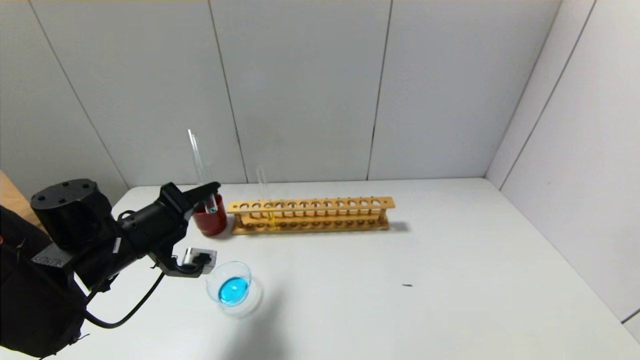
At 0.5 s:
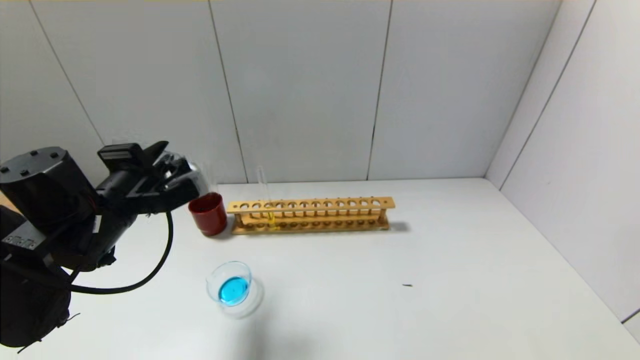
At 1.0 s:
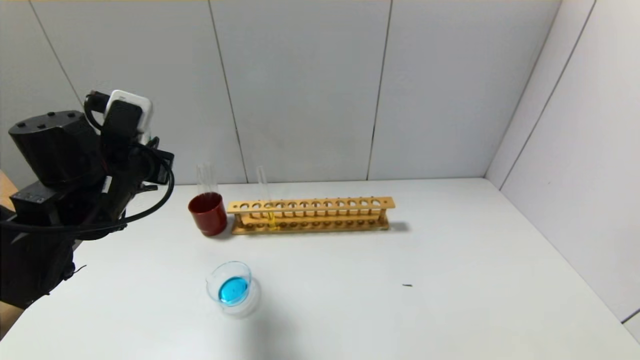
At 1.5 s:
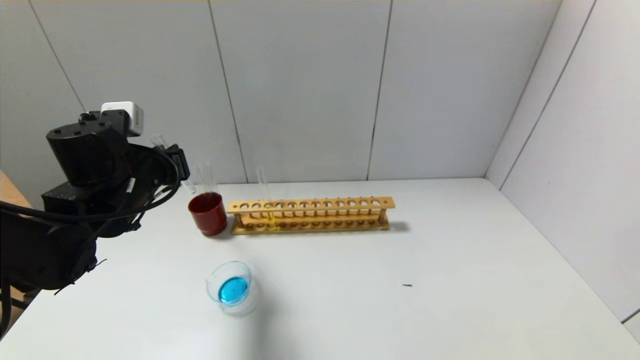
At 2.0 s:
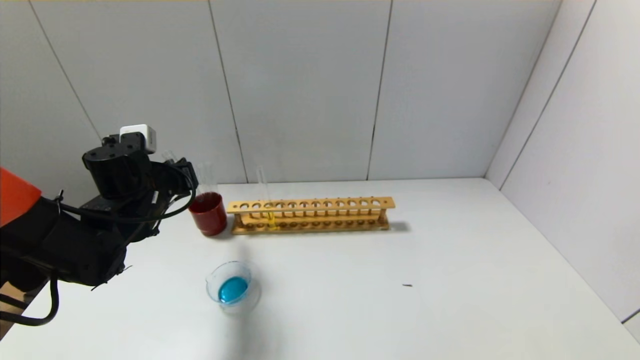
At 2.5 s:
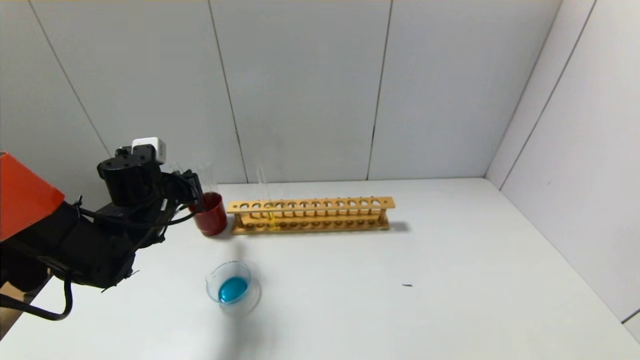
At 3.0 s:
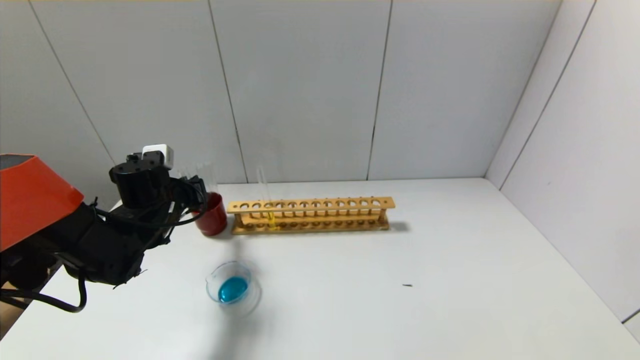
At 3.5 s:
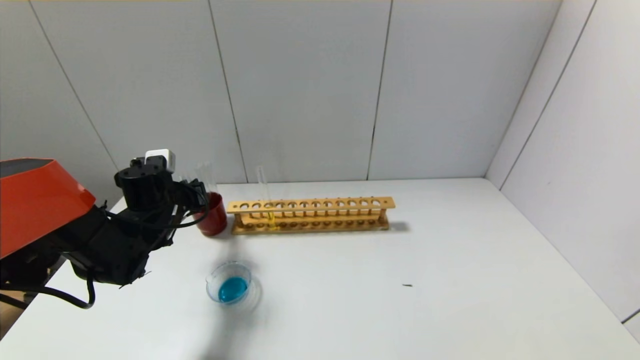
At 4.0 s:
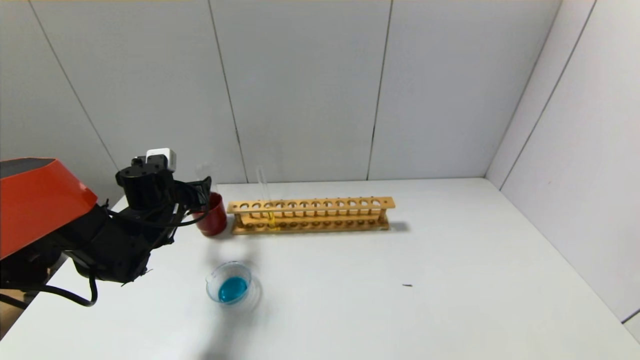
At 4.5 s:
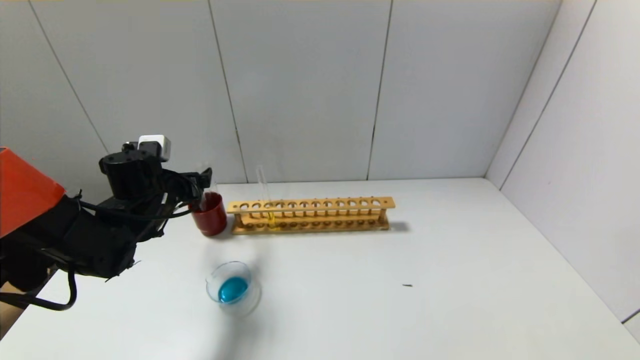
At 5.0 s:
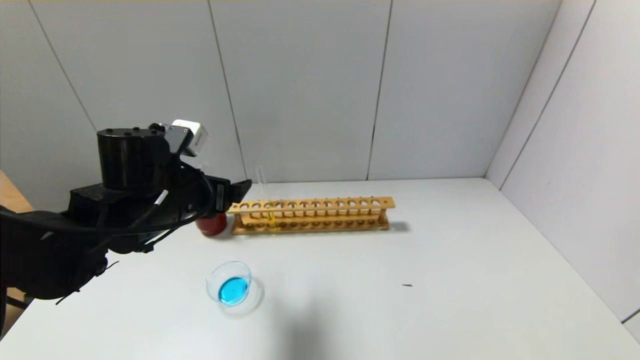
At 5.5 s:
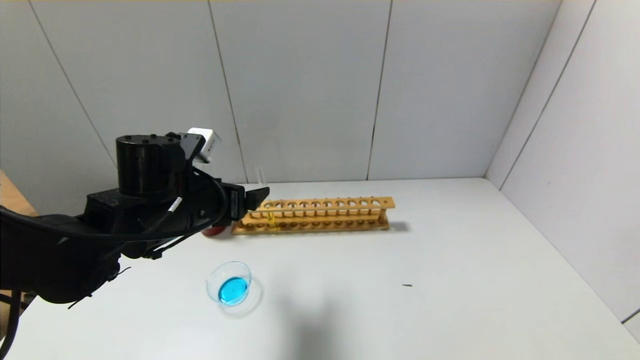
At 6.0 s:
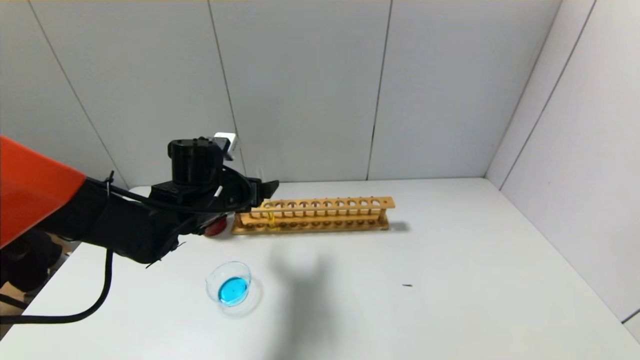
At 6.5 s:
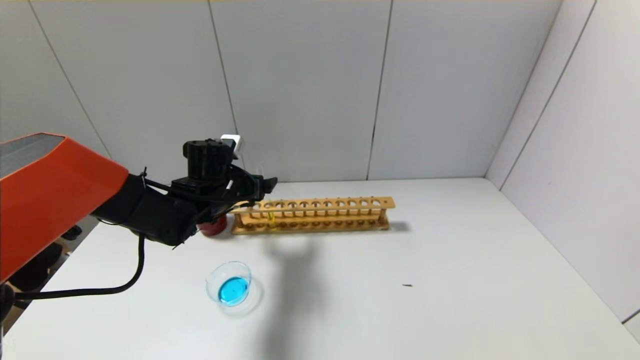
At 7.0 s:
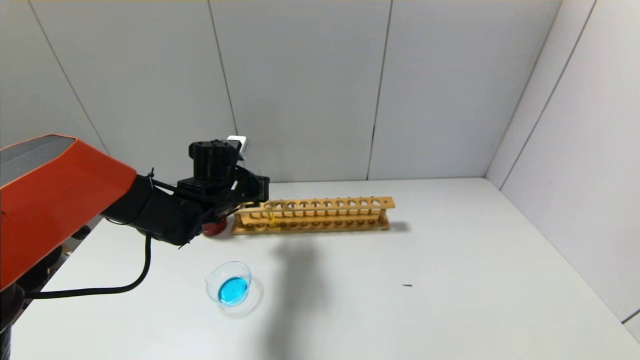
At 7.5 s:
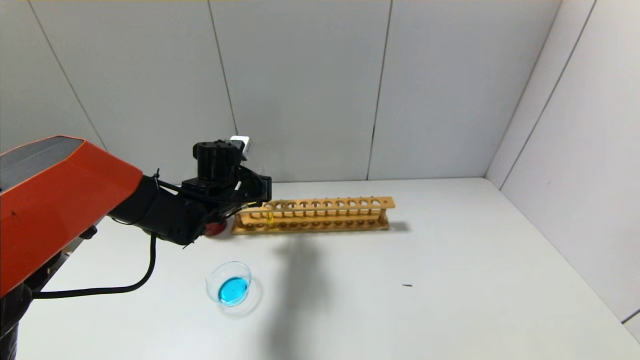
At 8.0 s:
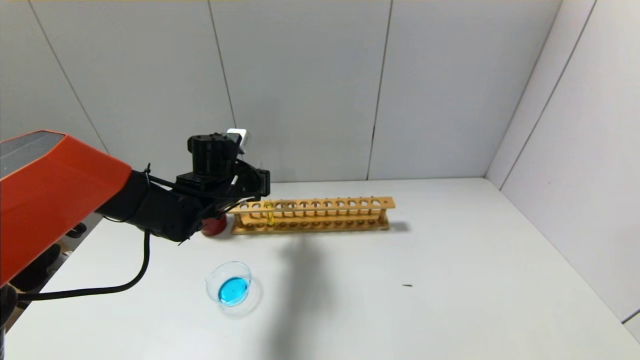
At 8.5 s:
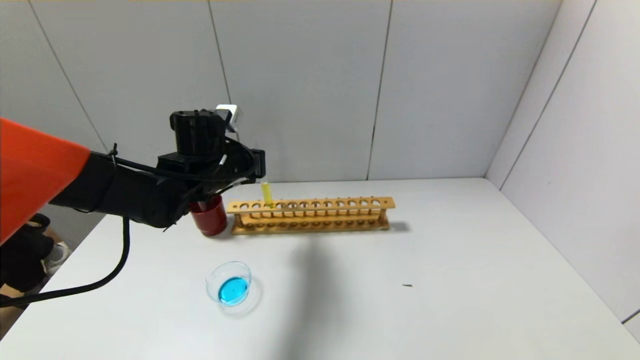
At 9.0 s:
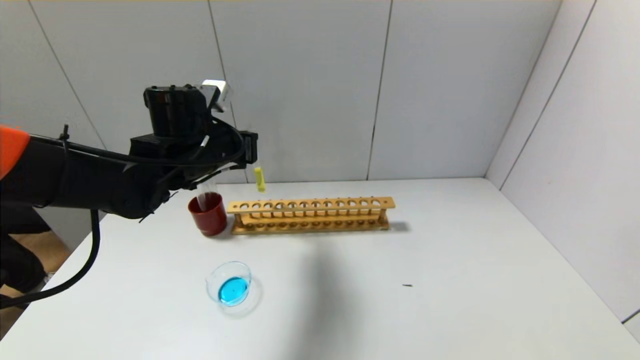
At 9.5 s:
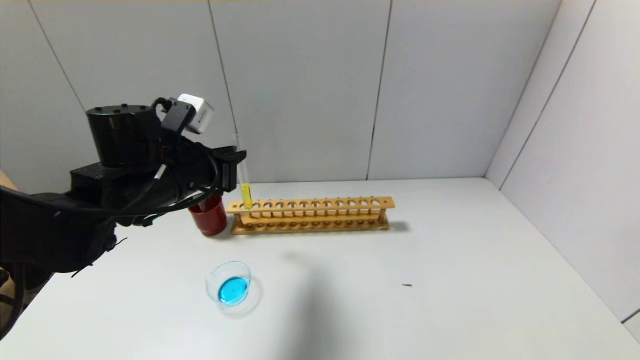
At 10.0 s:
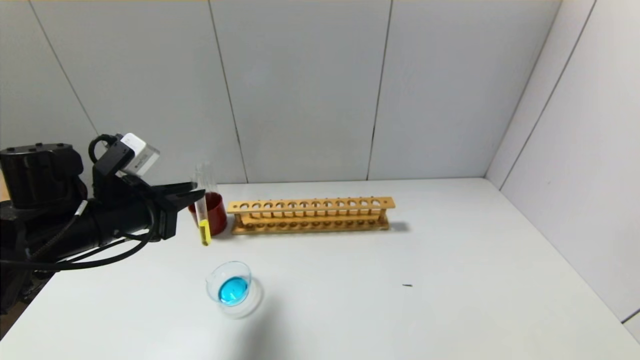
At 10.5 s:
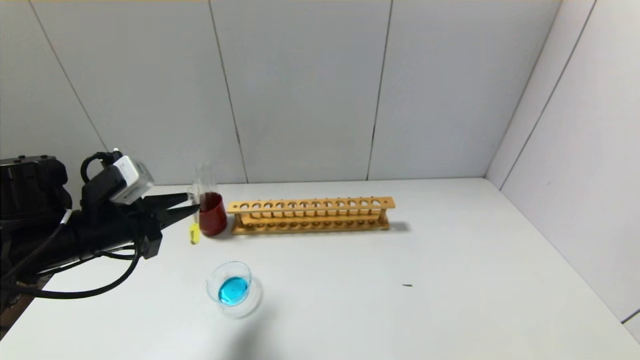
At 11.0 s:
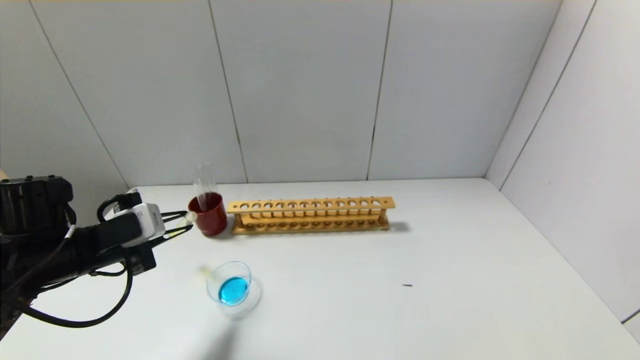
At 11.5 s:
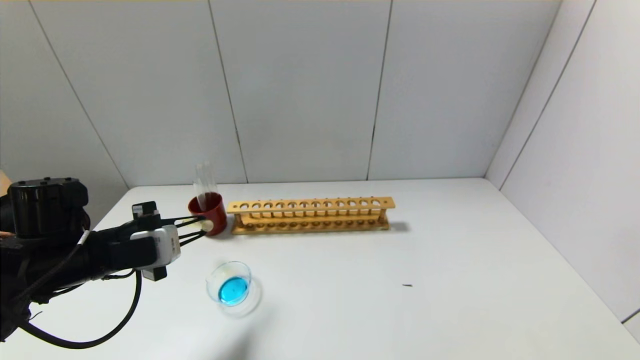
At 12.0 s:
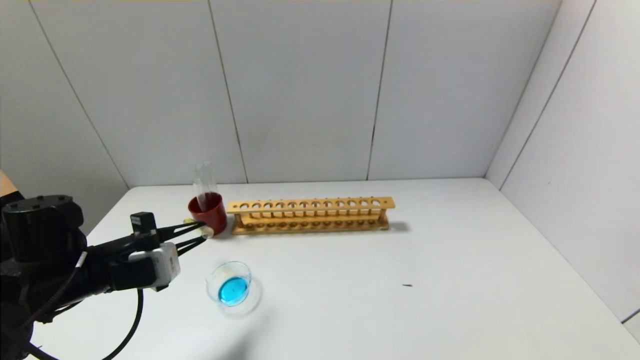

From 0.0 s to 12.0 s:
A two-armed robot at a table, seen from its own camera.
Step, from 0.5 s to 3.5 s: Place the test tube into the brown cup with the left gripper.
Step, from 4.0 s to 7.0 s: Grasp the yellow reagent with the left gripper.
From 0.0 s to 2.0 s: The left gripper moves forward, about 5 cm.
From 2.0 s to 4.0 s: The left gripper goes some 5 cm downward, and opens.
From 4.0 s to 6.0 s: The left gripper heads to the right, covering roughly 10 cm, and reaches roughly 10 cm backward, then returns.
From 6.0 s to 8.0 s: The left gripper closes.
From 8.0 s to 10.0 s: The left gripper is displaced backward and to the left by some 15 cm.
From 10.0 s to 12.0 s: The left gripper travels downward by roughly 5 cm.

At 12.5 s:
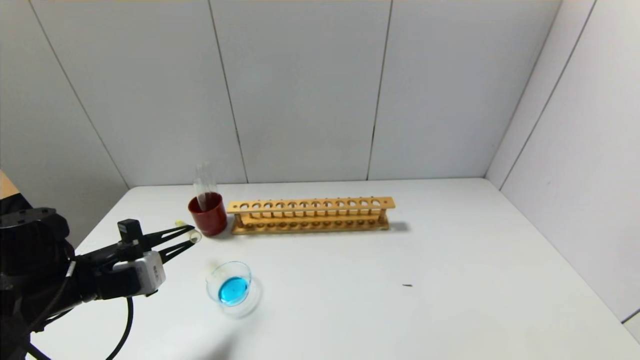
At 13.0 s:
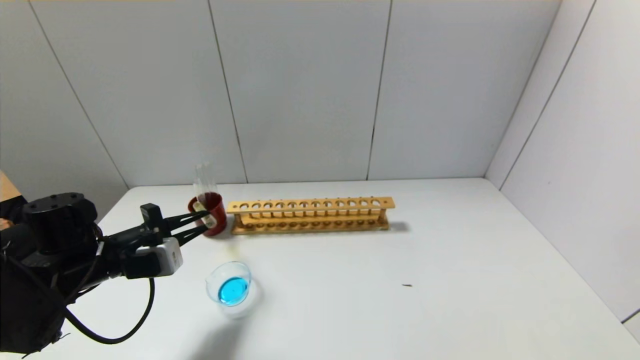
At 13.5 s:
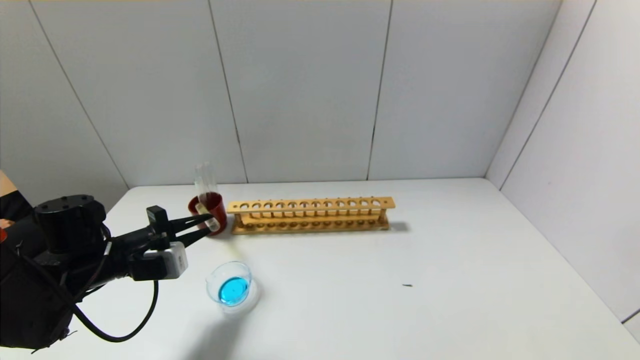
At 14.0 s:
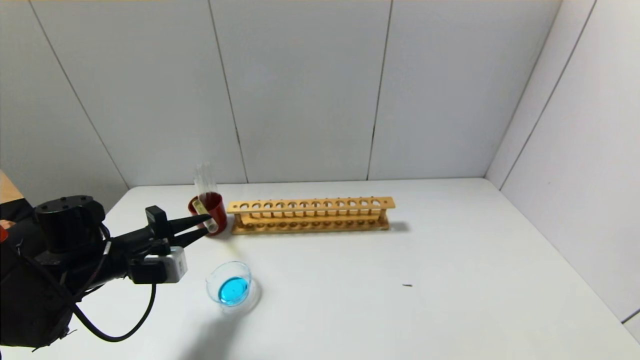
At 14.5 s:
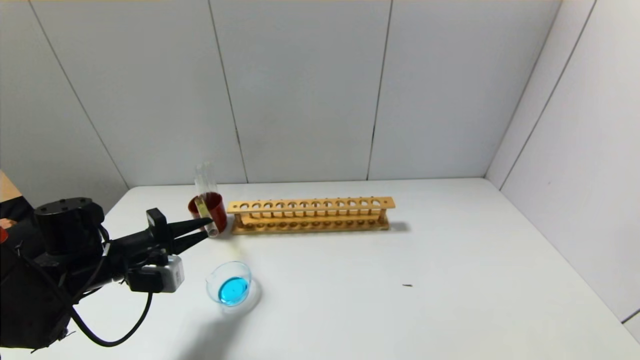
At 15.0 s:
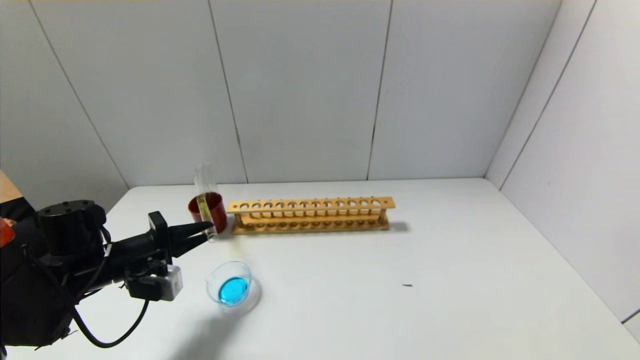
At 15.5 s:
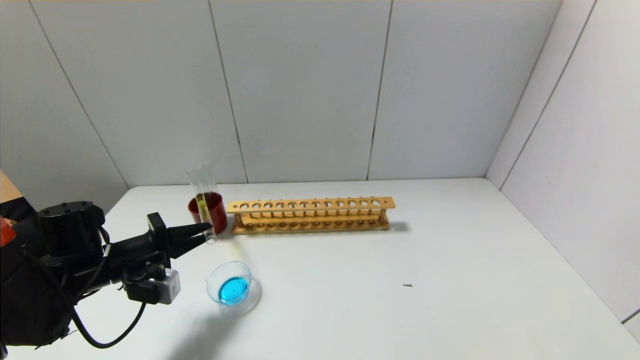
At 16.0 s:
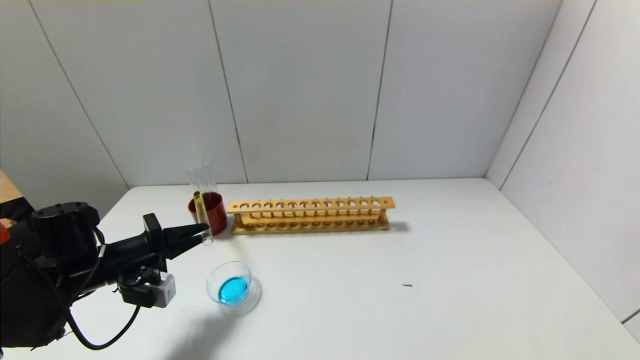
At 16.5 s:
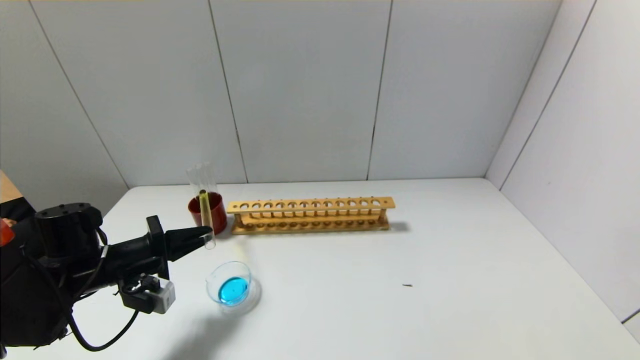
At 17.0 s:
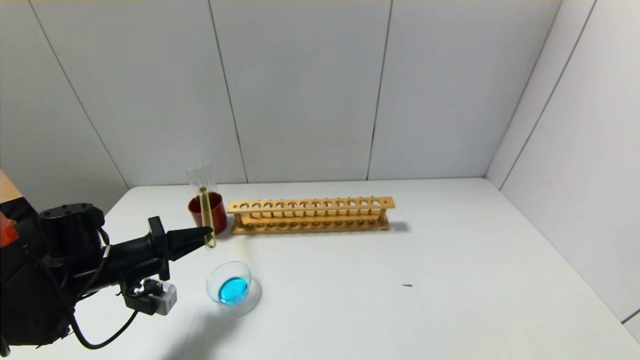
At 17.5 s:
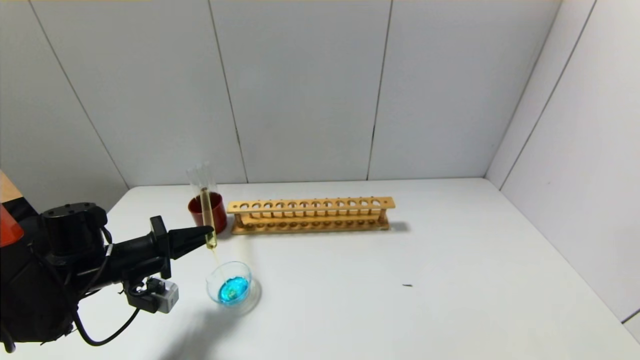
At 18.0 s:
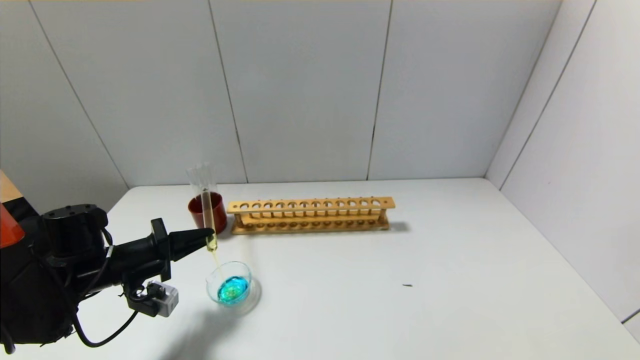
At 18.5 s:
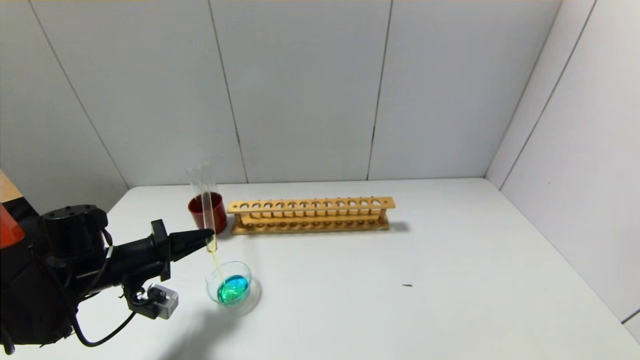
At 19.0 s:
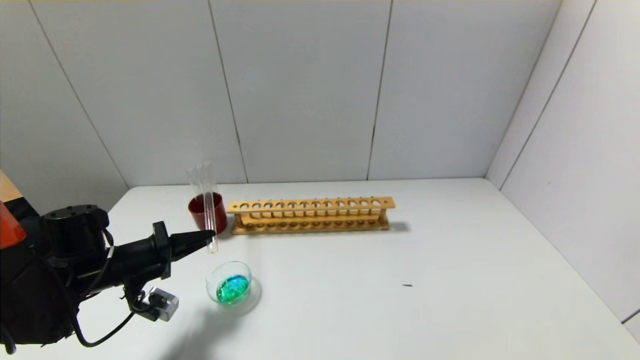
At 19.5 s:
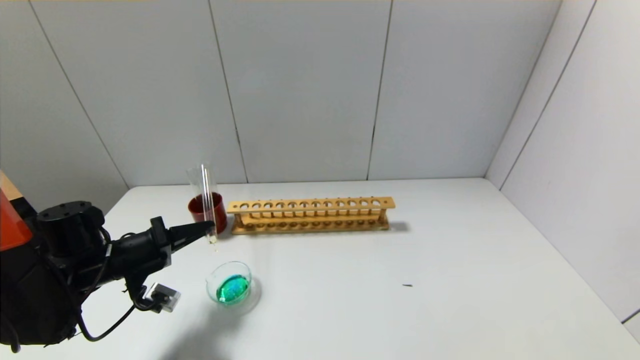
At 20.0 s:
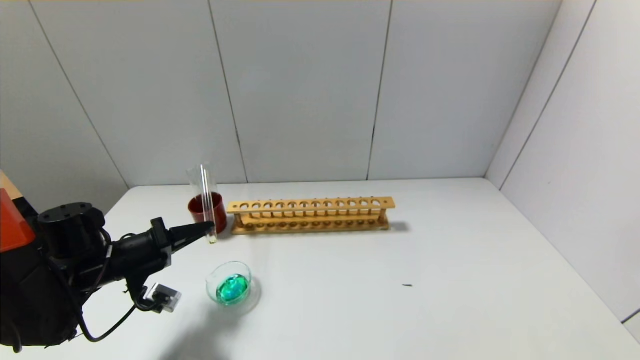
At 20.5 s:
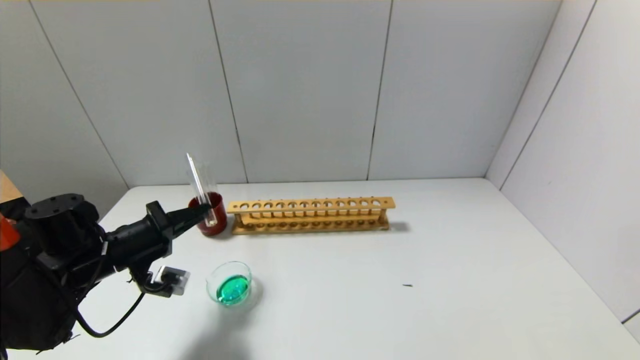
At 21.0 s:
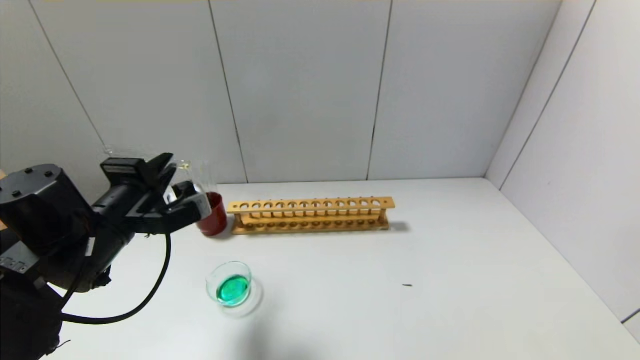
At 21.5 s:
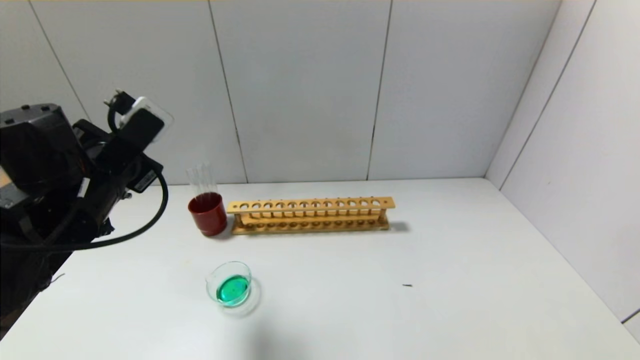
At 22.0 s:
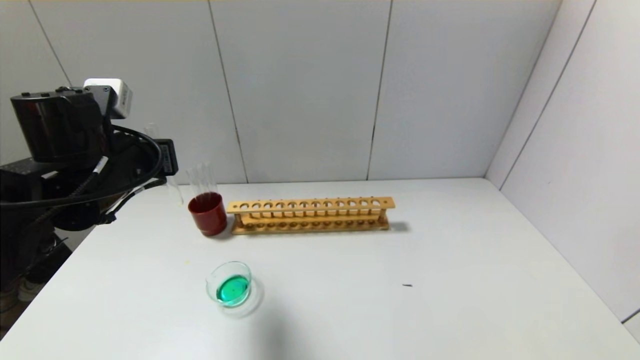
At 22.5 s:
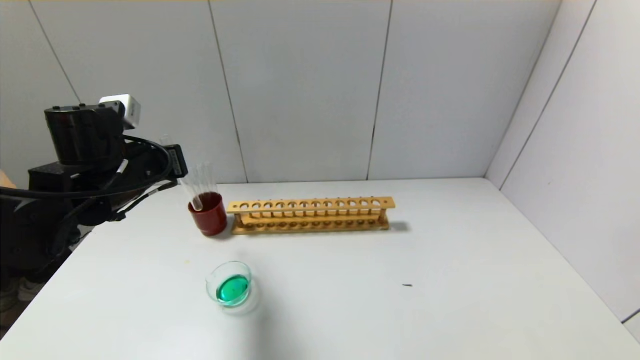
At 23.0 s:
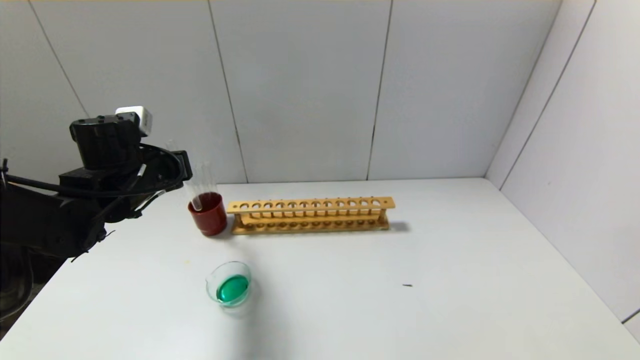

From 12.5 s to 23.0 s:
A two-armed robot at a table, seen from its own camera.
Step, from 12.5 s to 20.5 s: Pour the yellow reagent into the graduated cylinder with the left gripper.
From 12.5 s to 14.5 s: The grippers make only small movements.
From 14.5 s to 16.5 s: There are only small adjustments of the grippers.
From 16.5 s to 19.0 s: The grippers stay close to where they were, moving slightly.
From 19.0 s to 21.0 s: The left gripper is displaced upward and to the right by roughly 10 cm.
From 21.0 s to 23.0 s: The left gripper shifts some 10 cm forward.
